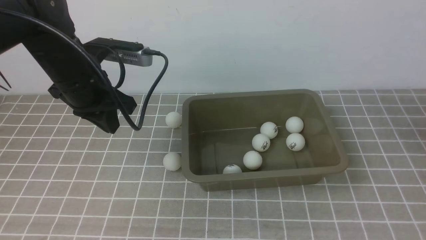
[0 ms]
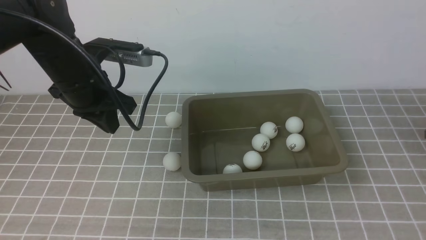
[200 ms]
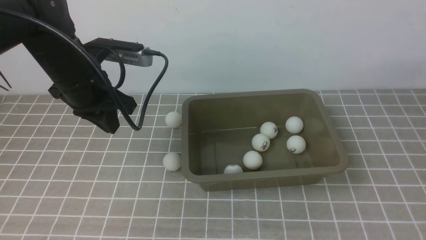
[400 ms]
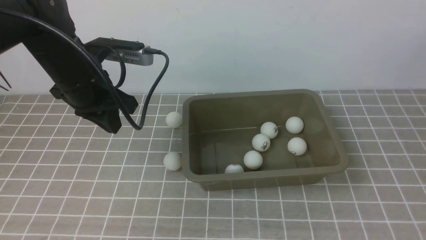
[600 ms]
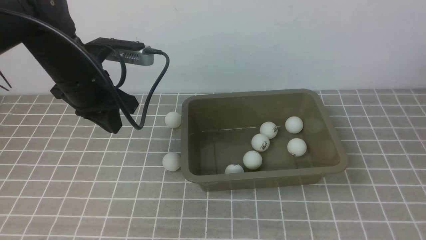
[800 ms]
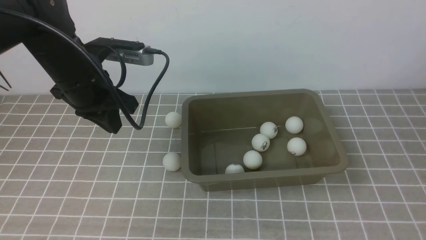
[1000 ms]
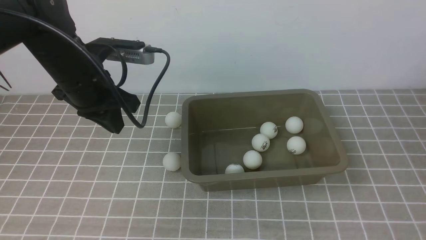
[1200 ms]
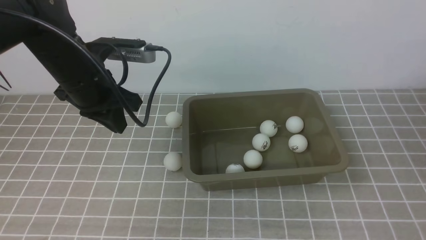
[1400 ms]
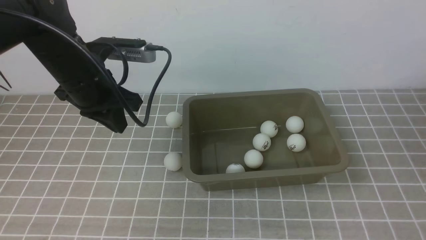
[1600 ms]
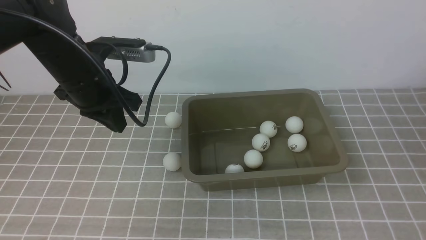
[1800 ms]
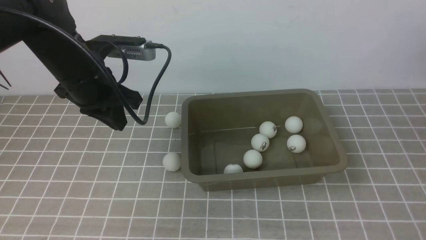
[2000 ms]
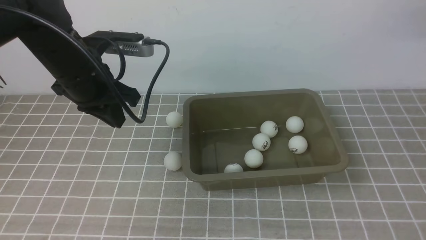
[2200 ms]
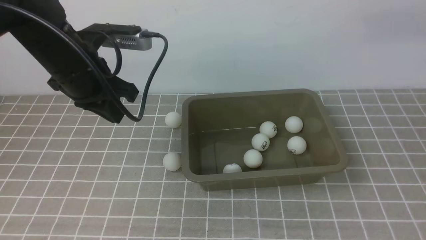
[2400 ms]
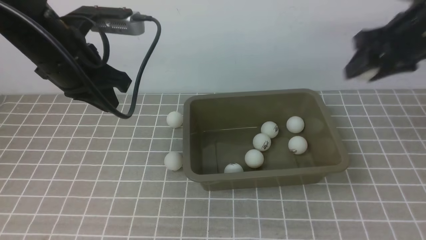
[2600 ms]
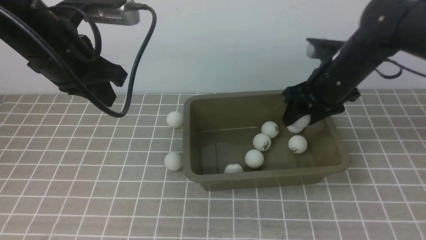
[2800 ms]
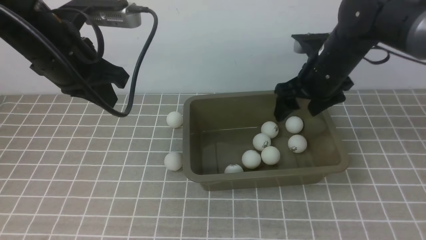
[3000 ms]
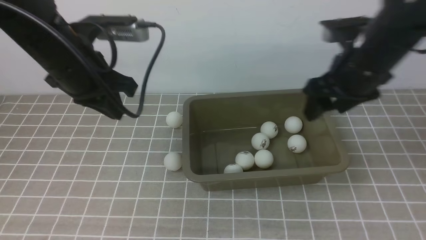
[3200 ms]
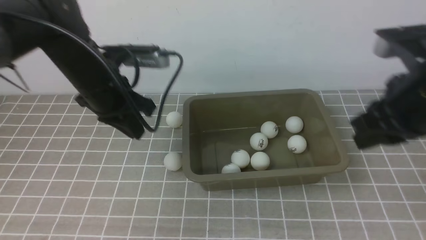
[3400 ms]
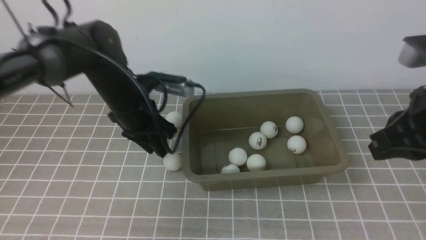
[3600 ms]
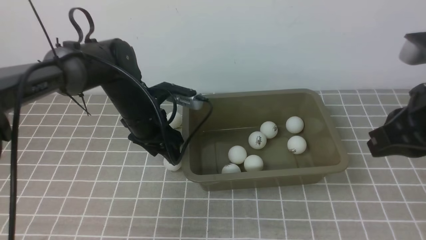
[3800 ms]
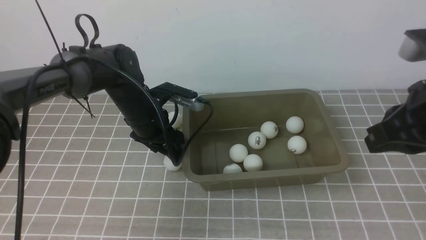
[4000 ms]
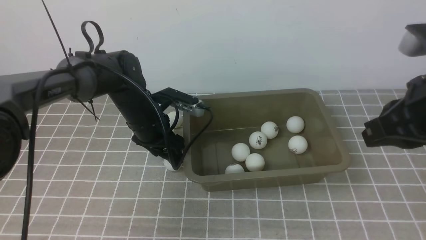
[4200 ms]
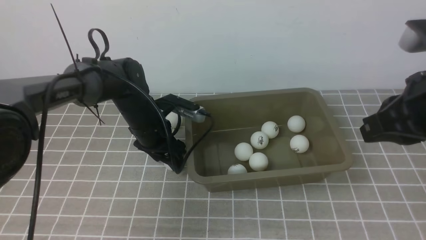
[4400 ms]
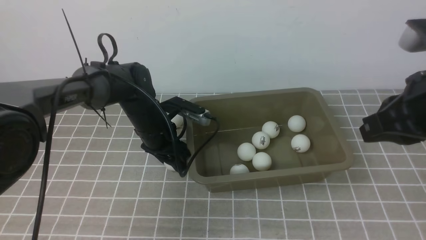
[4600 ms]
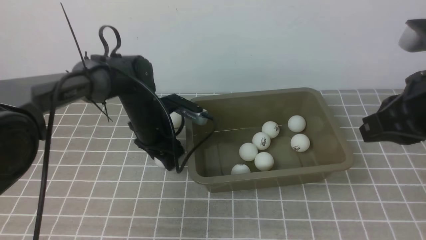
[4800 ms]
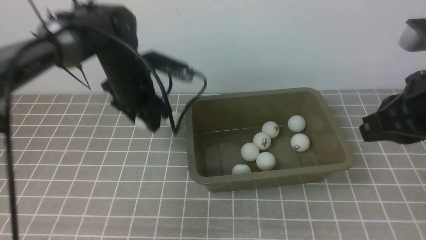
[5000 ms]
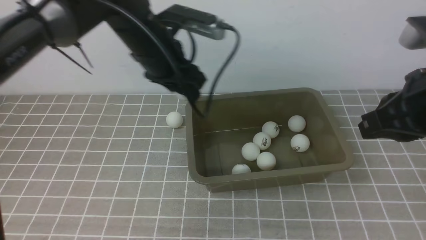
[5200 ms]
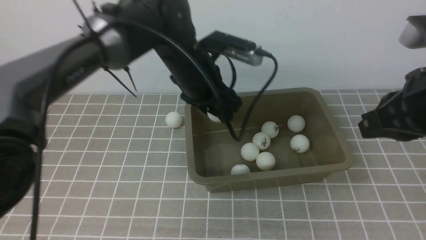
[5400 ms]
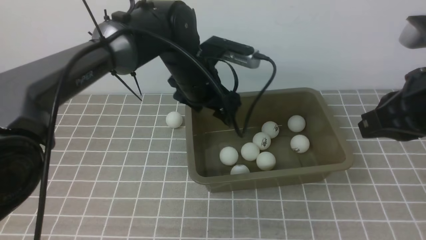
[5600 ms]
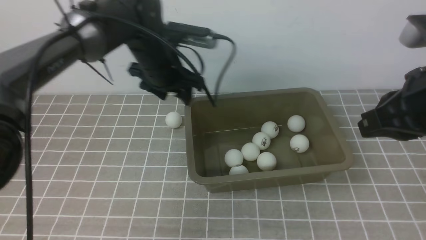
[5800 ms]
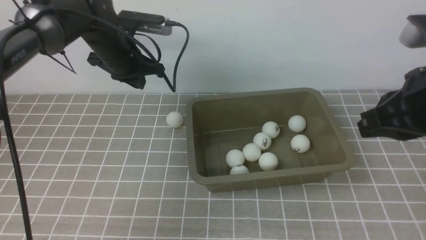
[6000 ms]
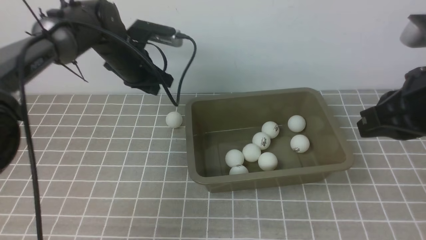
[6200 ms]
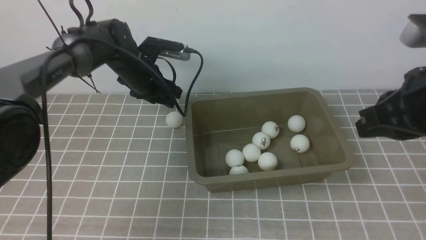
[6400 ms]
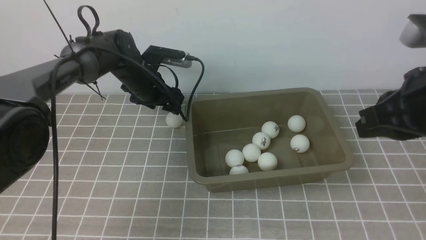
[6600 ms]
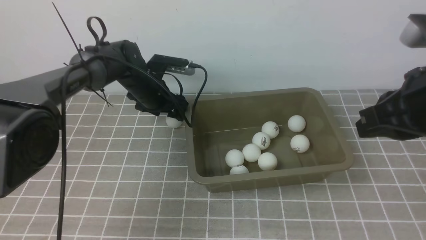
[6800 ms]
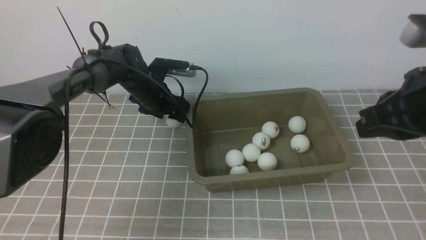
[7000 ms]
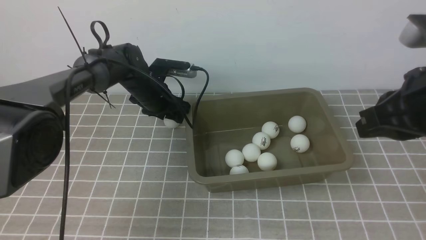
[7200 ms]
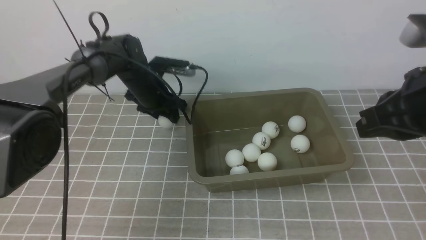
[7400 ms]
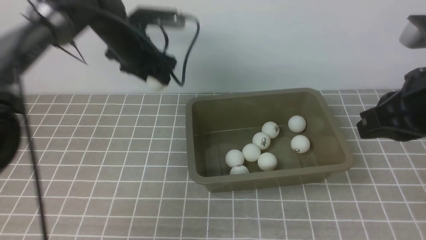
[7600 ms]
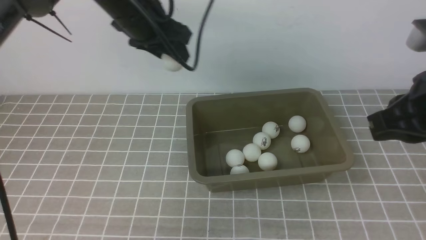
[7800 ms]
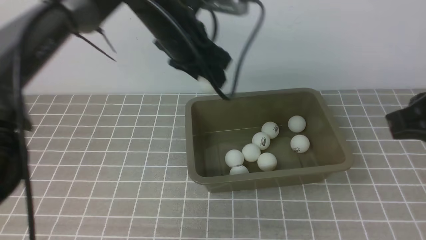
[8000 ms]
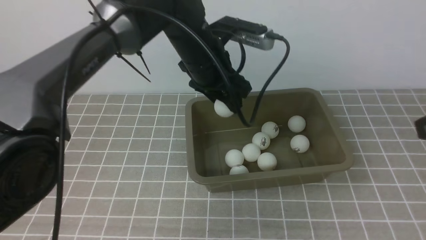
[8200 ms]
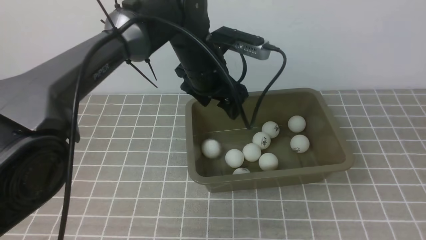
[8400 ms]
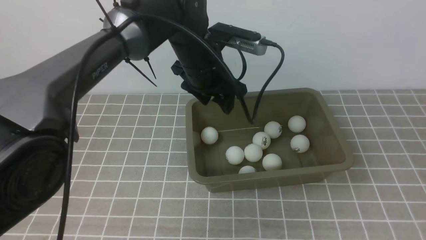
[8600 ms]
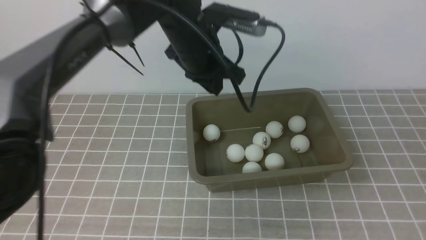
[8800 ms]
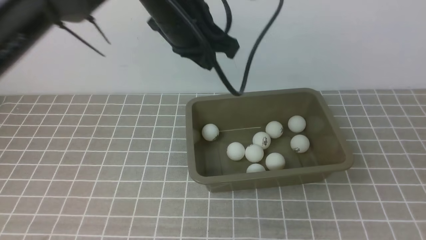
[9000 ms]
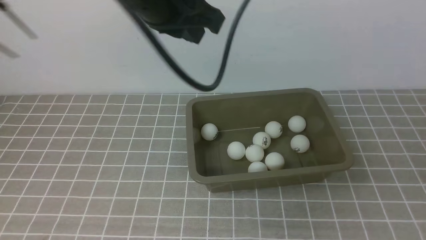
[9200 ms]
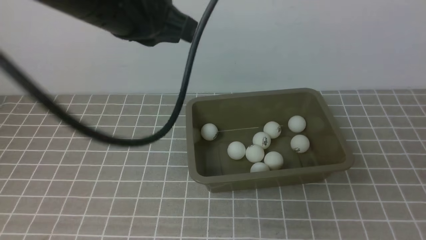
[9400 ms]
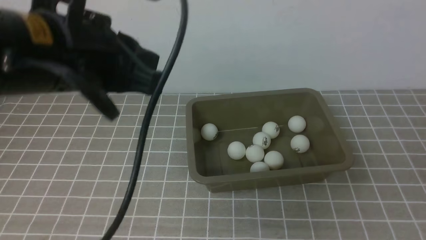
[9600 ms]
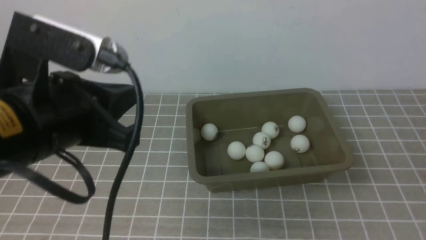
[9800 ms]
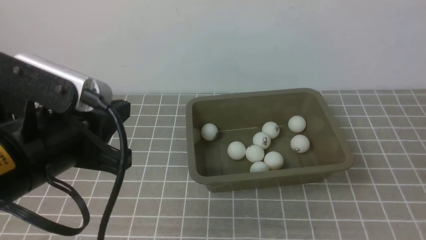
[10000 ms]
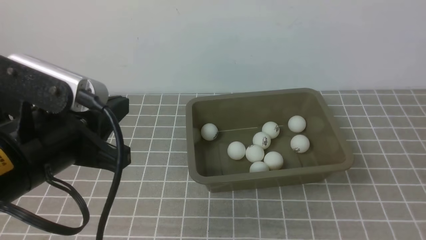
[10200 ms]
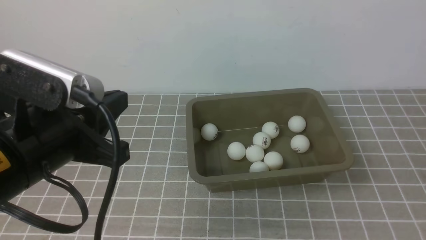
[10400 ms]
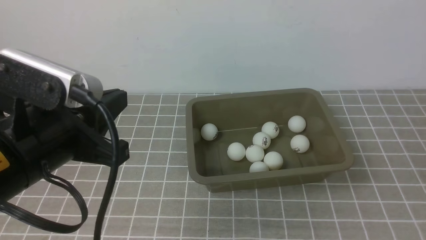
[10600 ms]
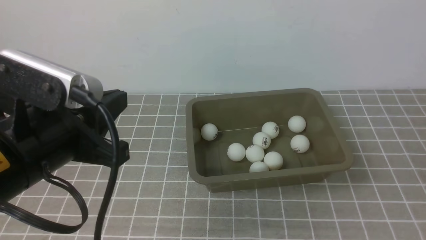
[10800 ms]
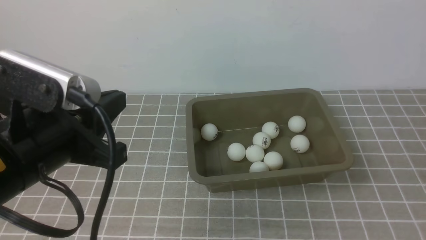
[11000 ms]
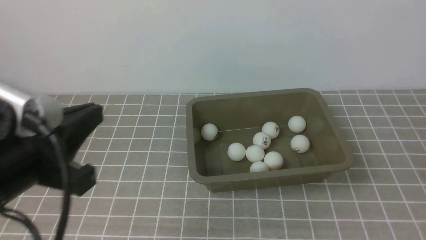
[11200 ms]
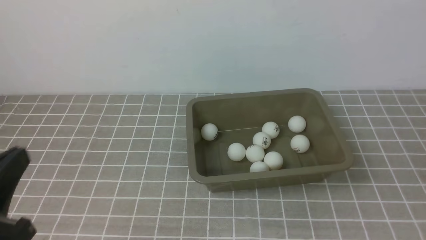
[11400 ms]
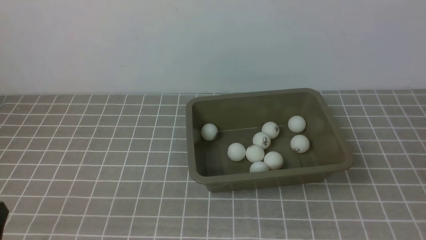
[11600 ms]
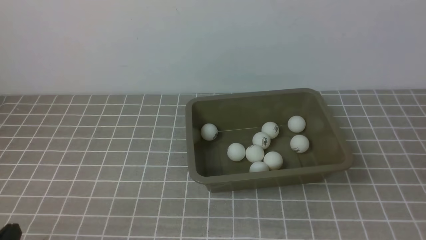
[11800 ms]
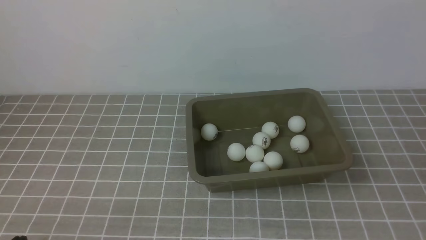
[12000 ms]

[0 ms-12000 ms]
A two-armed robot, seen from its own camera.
Step, 0 ms to 2400 ms: use the right arm to clamp the table tennis ball closest to it.
Step, 2600 ms to 2800 ms: use the right arm to put the table tennis ball into the box.
Step, 3000 ms to 4800 ms: use the left arm to clamp the table tennis ball closest to it.
Step, 5000 ms to 5600 ms: use the left arm to put the table tennis ball into the box.
Step, 5800 ms to 7400 ms: use the left arm to clamp the table tennis ball closest to it.
Step, 7600 ms to 8400 ms: use the left arm to put the table tennis ball into the box.
0 ms to 1600 ms: The right gripper travels forward and to the right by approximately 15 cm, reaches about 10 cm upward, then returns, and opens its fingers.
1600 ms to 3000 ms: The left gripper shifts by approximately 5 cm; the right gripper is displaced to the left by approximately 40 cm.
3000 ms to 4400 ms: The left gripper shifts about 20 cm downward and forward, and opens up. The right gripper shifts some 20 cm backward and upward, and closes up.
4400 ms to 6000 ms: The left gripper goes some 10 cm upward and forward, and closes up.
6000 ms to 7600 ms: The left gripper travels downward and back again, about 10 cm each way, and opens up.
7600 ms to 9000 ms: The right gripper travels backward by about 20 cm. The left gripper heads backward, upward and to the right, covering about 15 cm, and closes its fingers.
9000 ms to 10400 ms: The left gripper is displaced backward and to the left by about 20 cm.
10400 ms to 12000 ms: The left gripper moves downward, backward and to the left, some 20 cm.

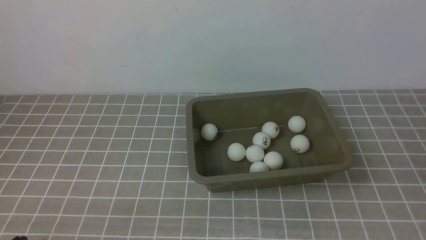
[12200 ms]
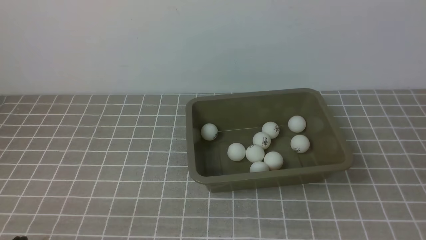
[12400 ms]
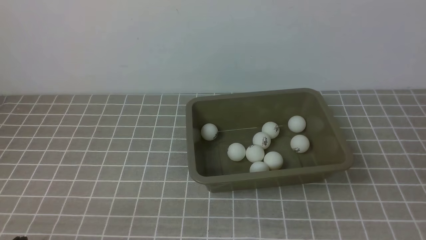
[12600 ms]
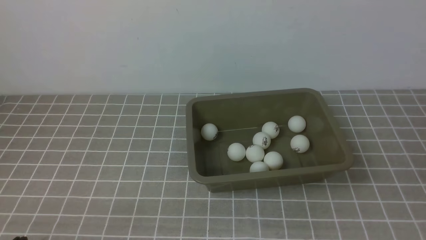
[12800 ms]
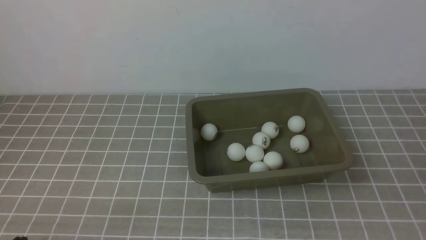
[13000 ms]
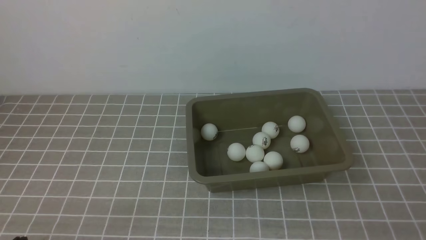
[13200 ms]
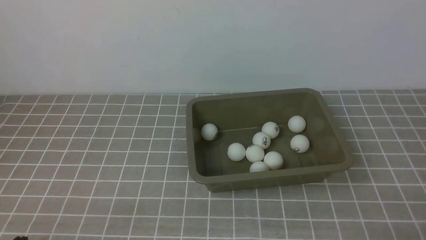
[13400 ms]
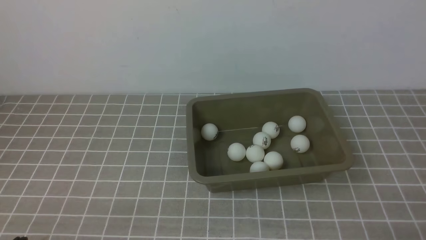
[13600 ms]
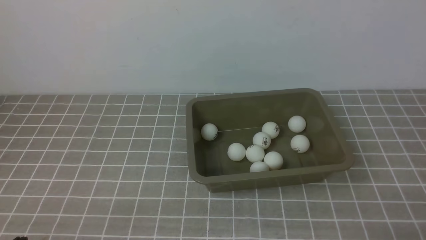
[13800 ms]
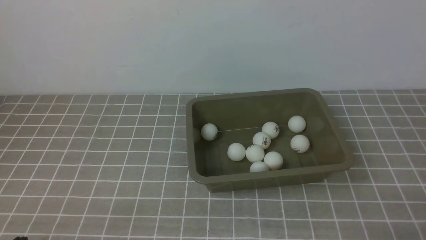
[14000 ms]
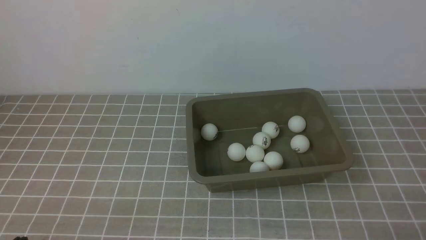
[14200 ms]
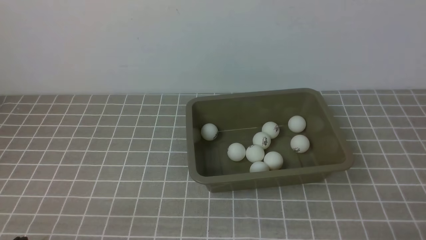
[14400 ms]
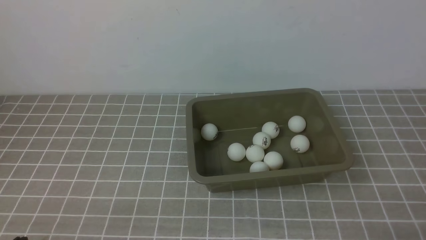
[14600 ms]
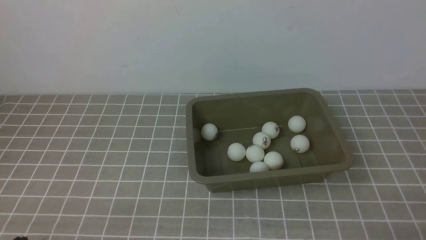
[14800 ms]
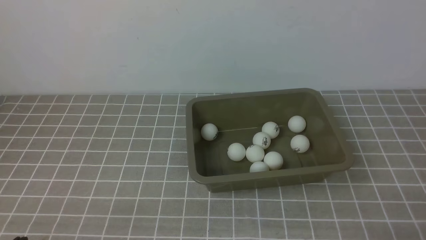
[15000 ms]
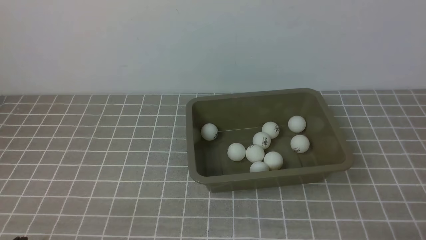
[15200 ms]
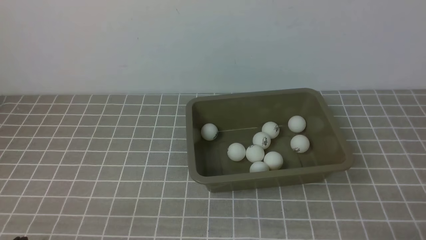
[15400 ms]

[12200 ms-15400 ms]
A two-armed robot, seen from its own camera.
13800 ms to 15400 ms: Both grippers stay put.

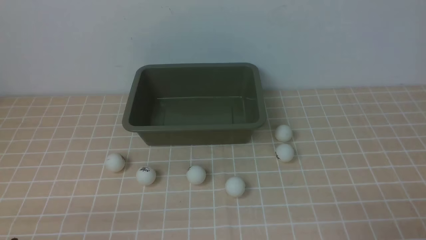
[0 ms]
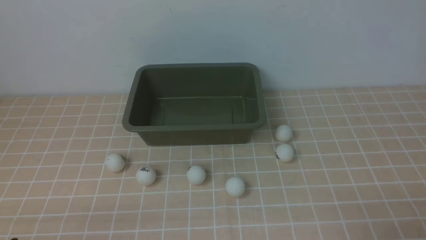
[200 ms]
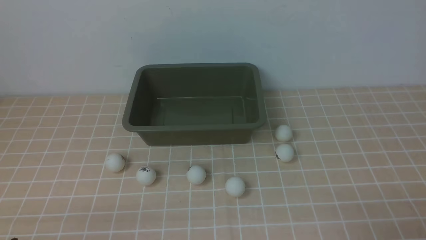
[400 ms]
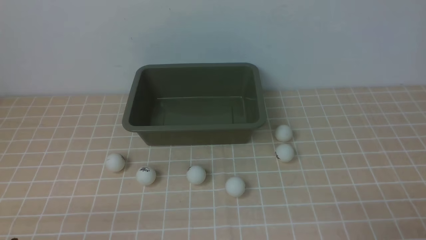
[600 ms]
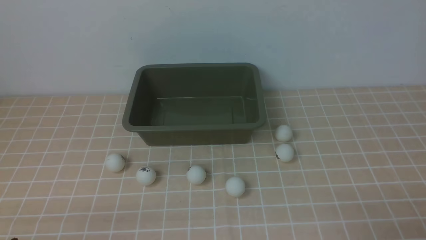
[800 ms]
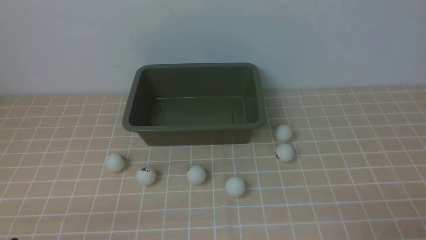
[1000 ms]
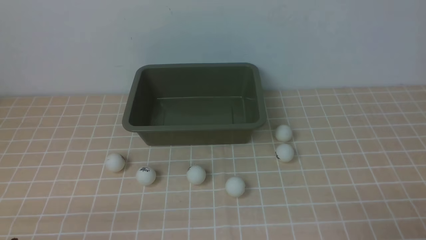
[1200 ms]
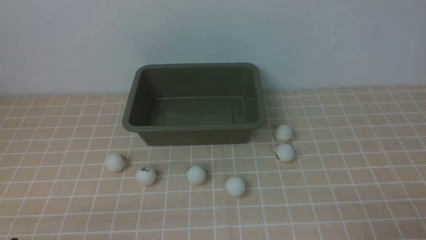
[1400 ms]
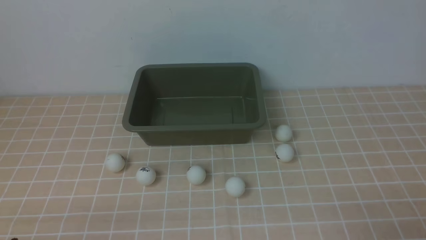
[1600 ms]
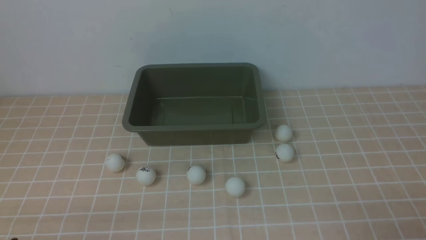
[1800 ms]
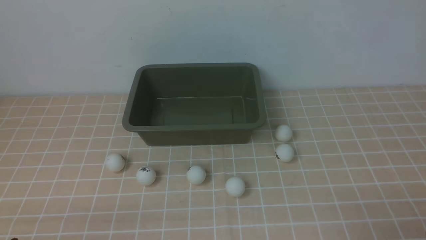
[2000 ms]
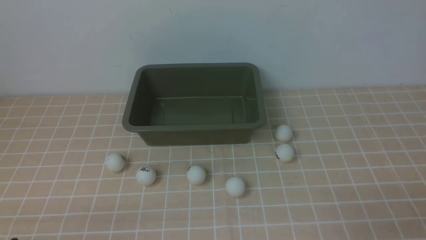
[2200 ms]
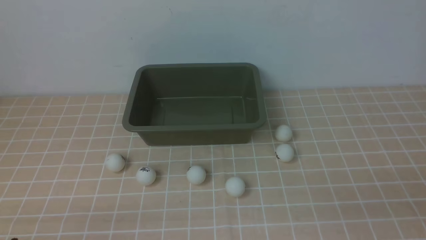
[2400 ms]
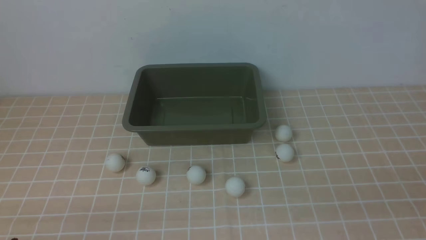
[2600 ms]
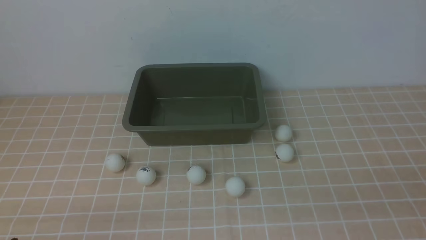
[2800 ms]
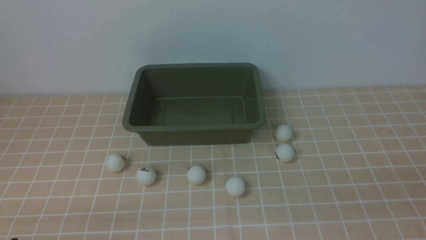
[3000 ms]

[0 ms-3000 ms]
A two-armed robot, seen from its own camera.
0 ms to 1600 ms: The two grippers keep their place.
